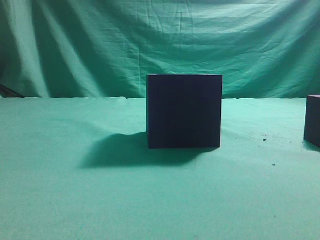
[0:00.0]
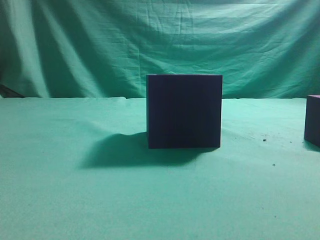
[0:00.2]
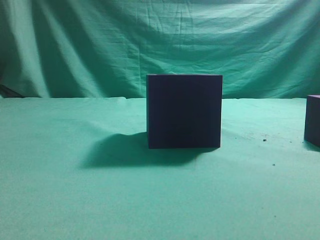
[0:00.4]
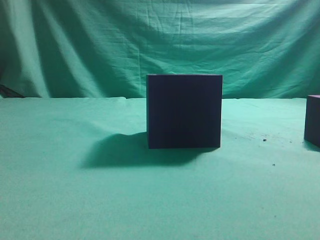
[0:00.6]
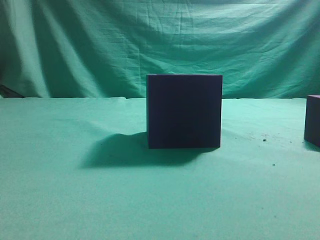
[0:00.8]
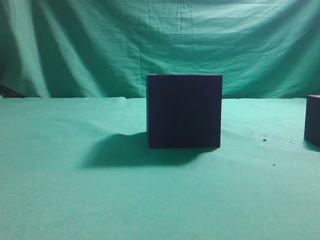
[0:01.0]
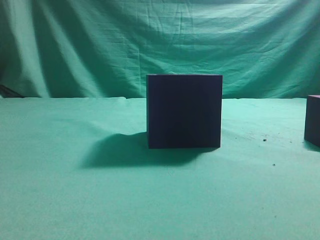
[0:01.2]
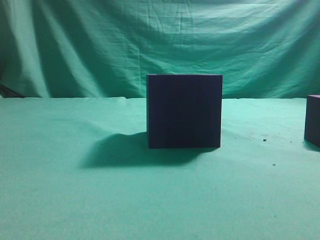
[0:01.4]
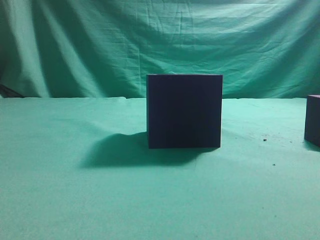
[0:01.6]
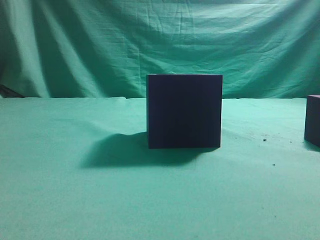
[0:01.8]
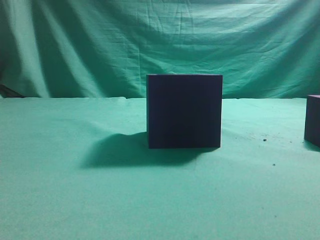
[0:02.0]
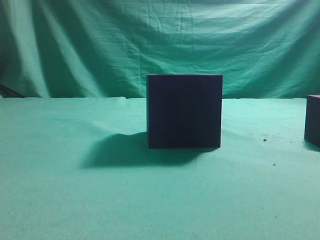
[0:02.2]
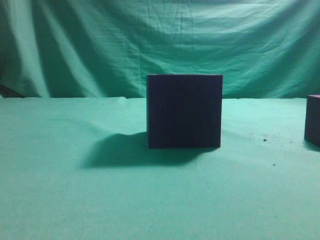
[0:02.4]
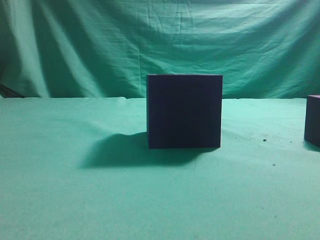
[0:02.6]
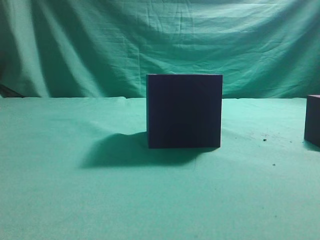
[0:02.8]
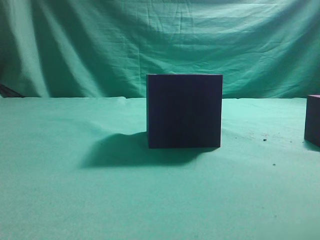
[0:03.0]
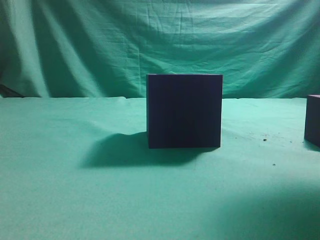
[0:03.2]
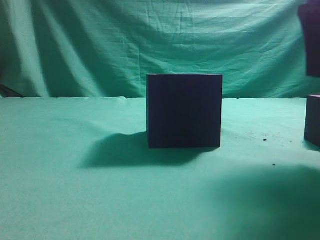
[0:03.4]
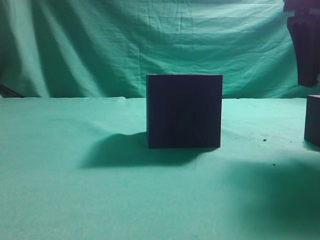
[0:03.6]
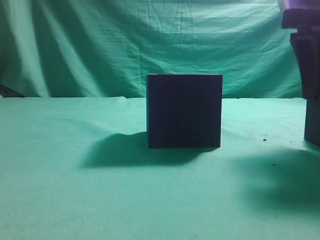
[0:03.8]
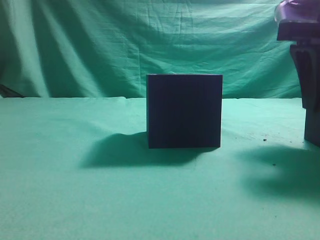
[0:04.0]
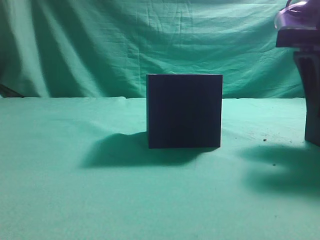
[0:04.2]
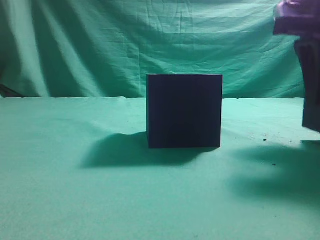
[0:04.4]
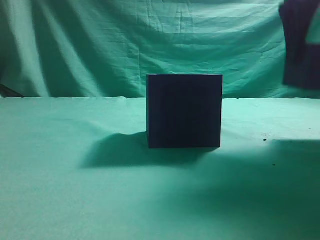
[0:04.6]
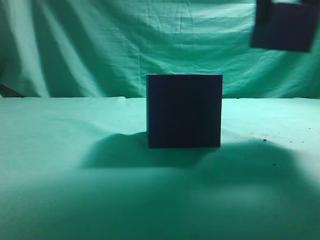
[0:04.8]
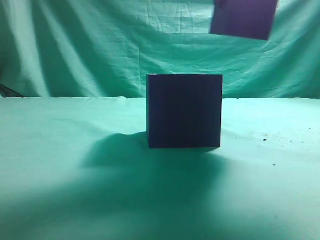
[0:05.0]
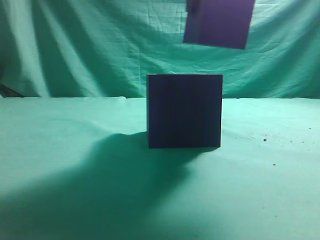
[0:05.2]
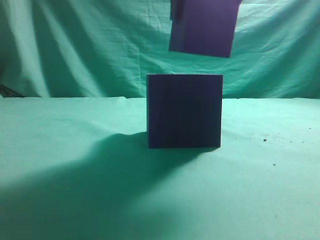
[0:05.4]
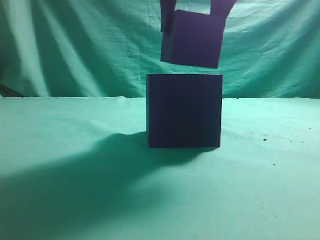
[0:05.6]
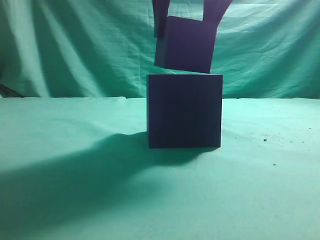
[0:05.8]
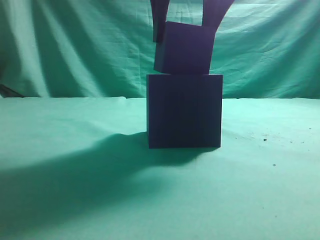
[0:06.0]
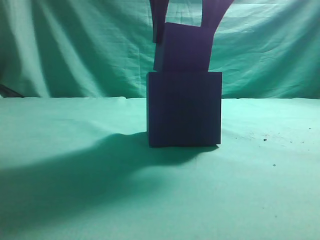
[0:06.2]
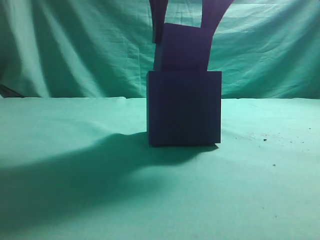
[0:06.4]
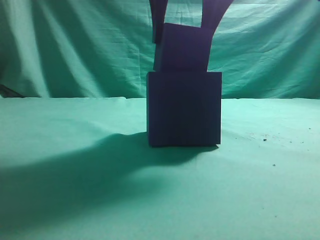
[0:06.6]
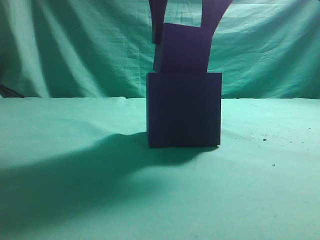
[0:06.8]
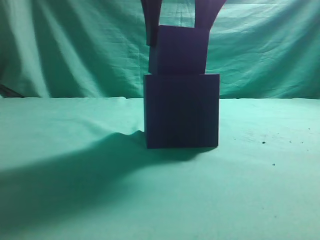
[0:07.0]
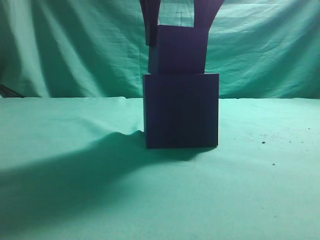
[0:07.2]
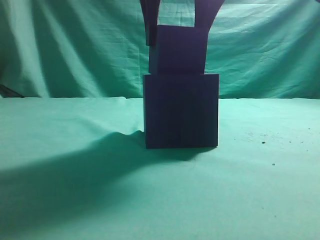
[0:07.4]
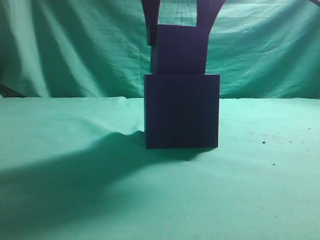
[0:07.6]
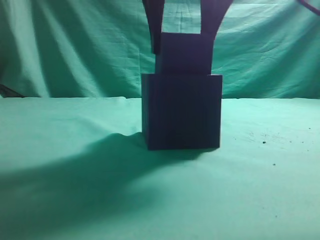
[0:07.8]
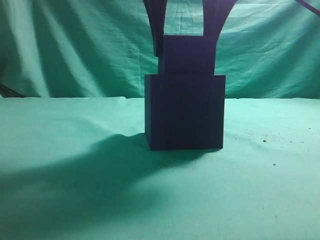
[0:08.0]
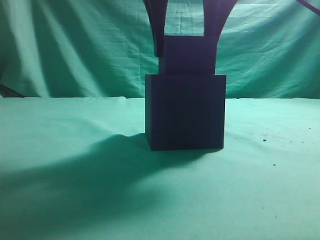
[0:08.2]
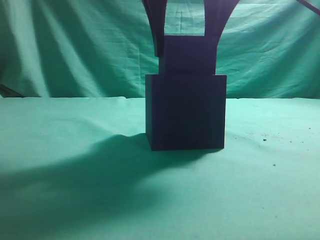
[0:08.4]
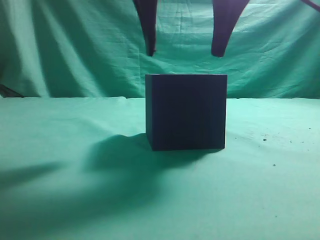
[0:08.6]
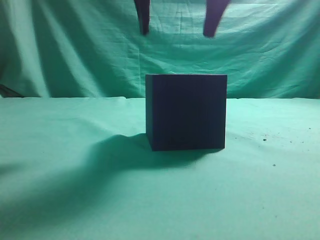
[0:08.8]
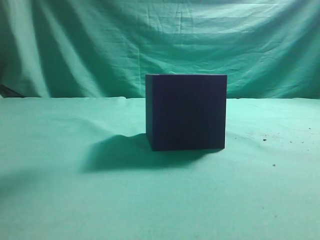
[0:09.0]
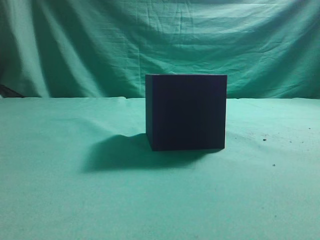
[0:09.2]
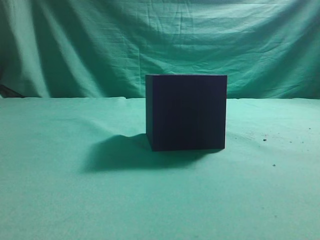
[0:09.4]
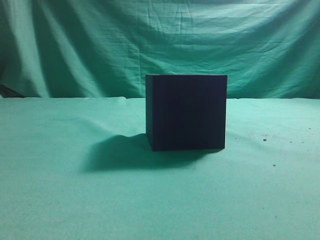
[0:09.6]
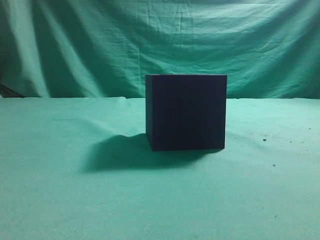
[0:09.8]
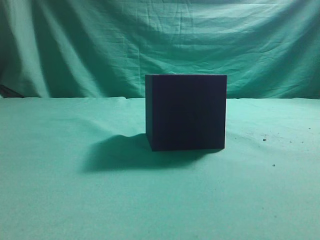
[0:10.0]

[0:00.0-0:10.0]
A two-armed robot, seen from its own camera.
Task of the whole recording: pick up the cube block and place it into the cube groove.
Step, 0:00.0 to 0:04.4: Grasp the cube.
Step, 0:04.6 to 0:08.6: Place cube into the cube-shaped recess.
0:02.8 to 0:04.2: The right gripper travels forward and downward by about 15 cm, and opens.
0:04.2 to 0:05.8: The right gripper is displaced to the left and upward by some 20 cm.
0:05.8 to 0:08.6: The grippers move only a little.
0:08.6 to 0:10.0: The right gripper travels backward, to the right and upward by some 25 cm, and closes.
